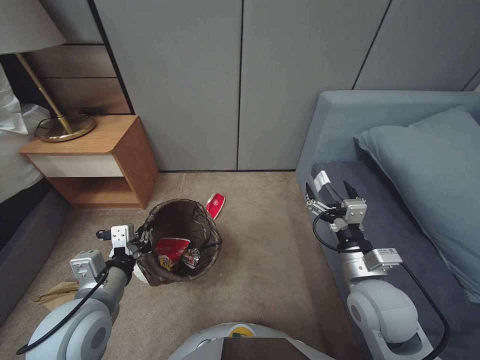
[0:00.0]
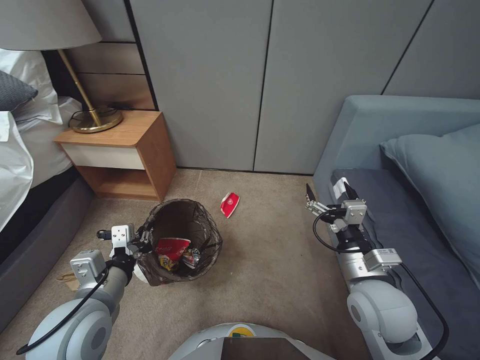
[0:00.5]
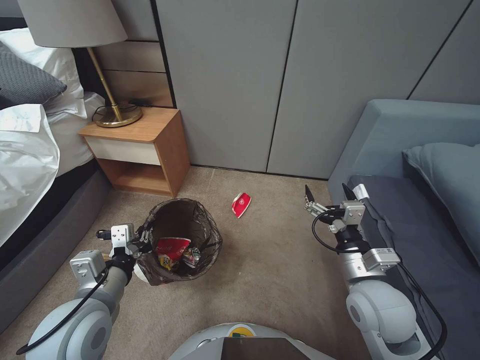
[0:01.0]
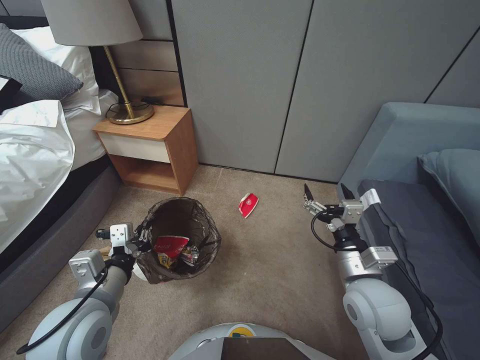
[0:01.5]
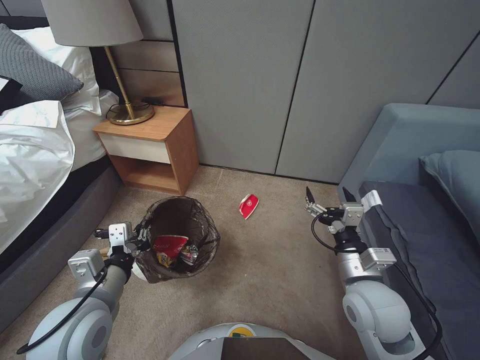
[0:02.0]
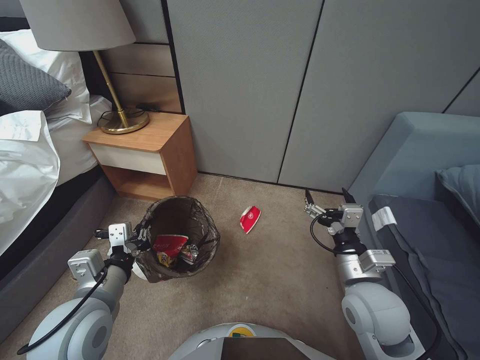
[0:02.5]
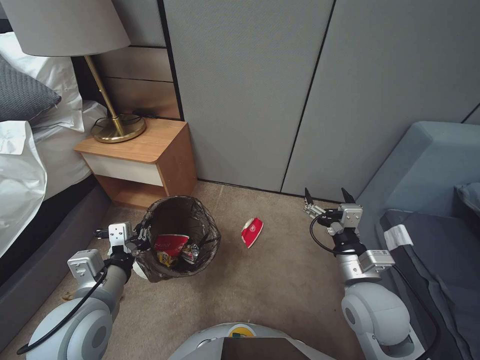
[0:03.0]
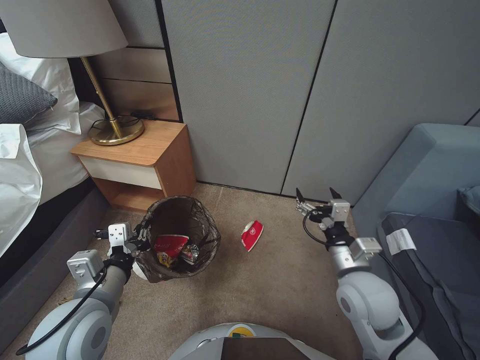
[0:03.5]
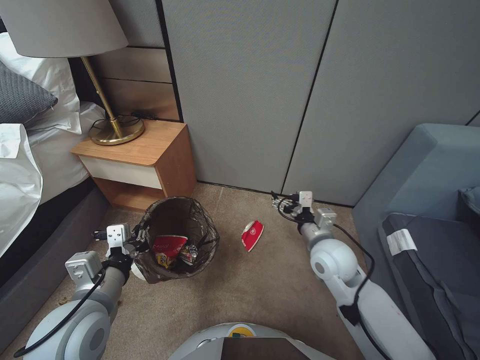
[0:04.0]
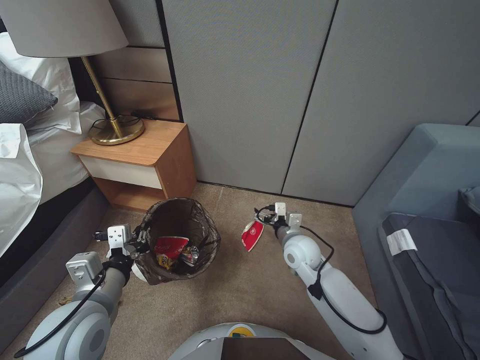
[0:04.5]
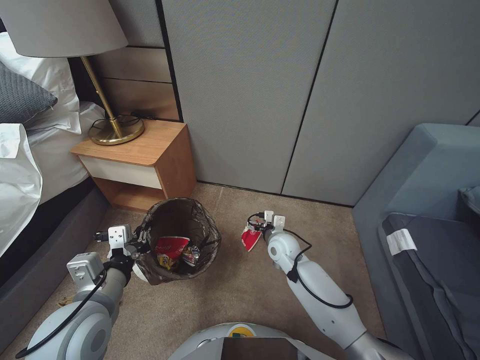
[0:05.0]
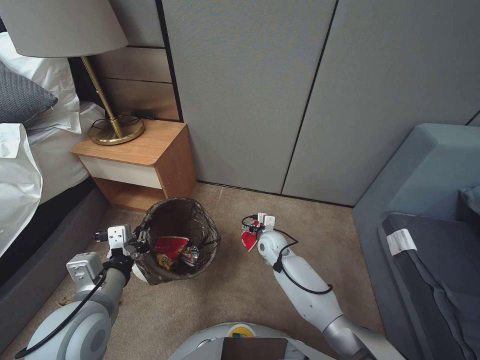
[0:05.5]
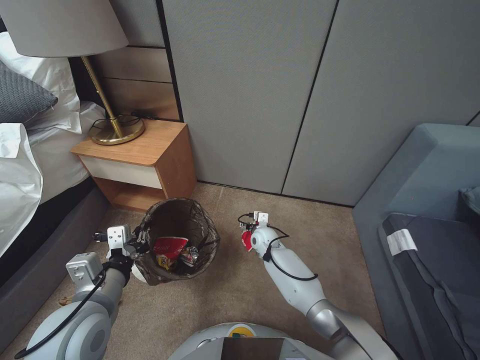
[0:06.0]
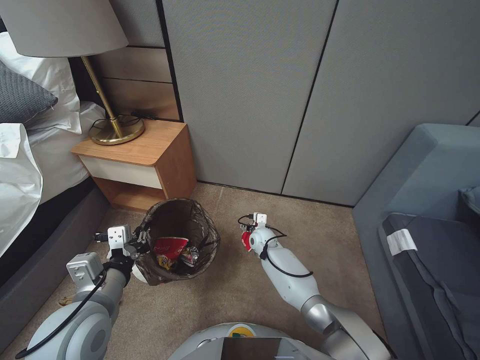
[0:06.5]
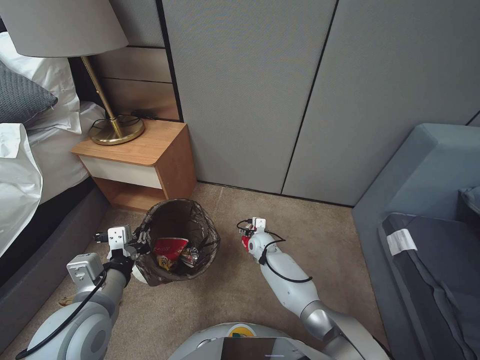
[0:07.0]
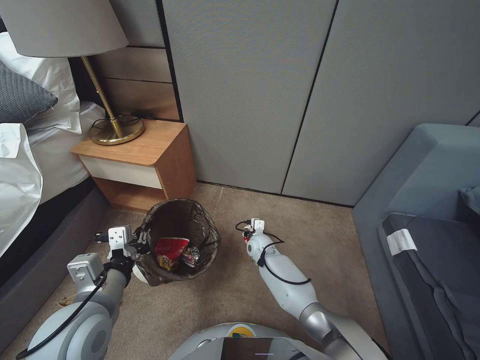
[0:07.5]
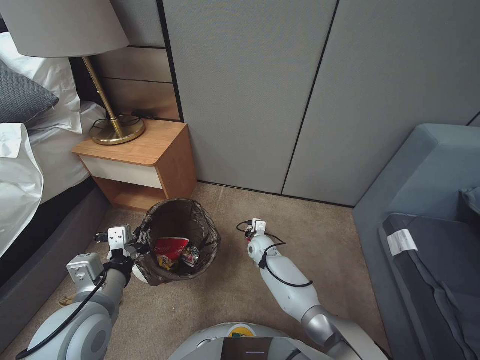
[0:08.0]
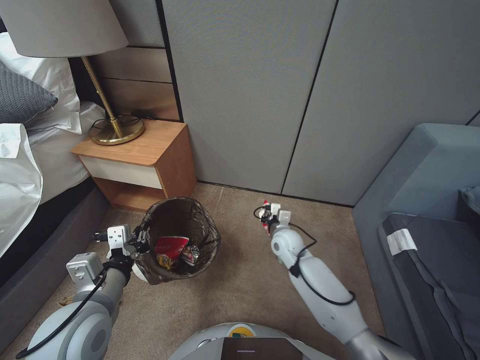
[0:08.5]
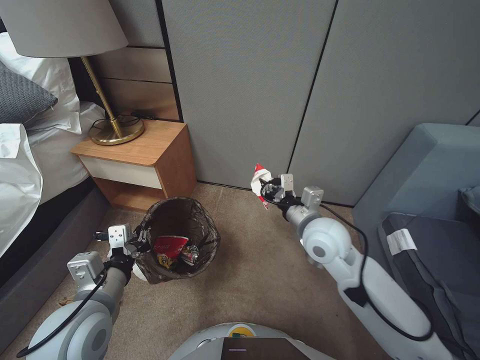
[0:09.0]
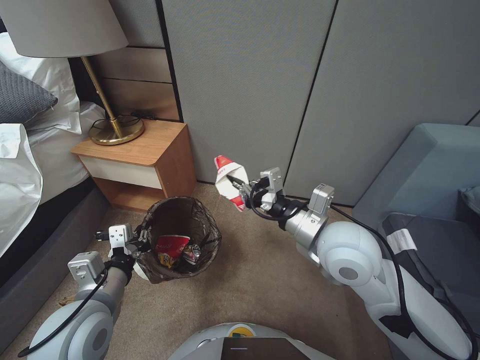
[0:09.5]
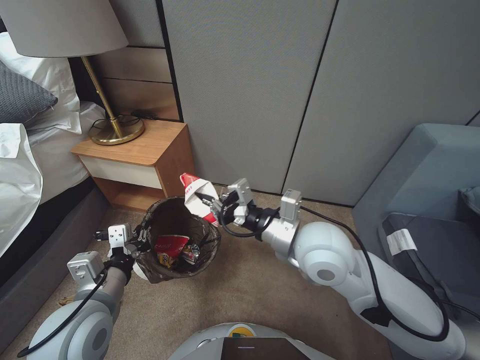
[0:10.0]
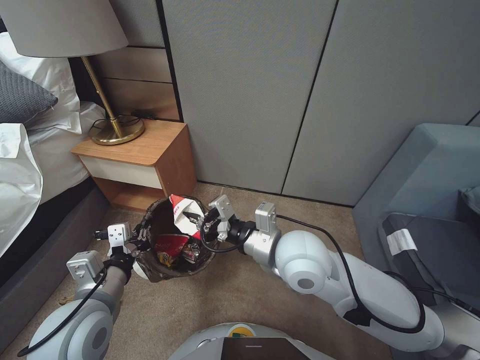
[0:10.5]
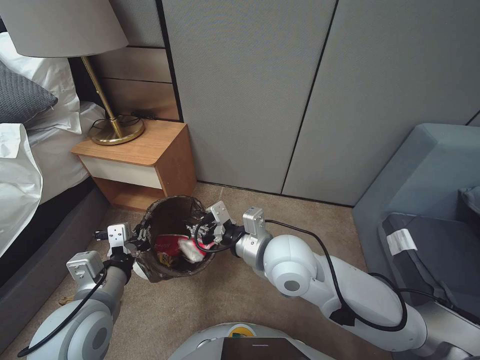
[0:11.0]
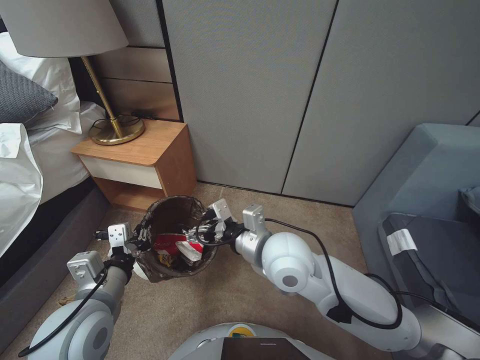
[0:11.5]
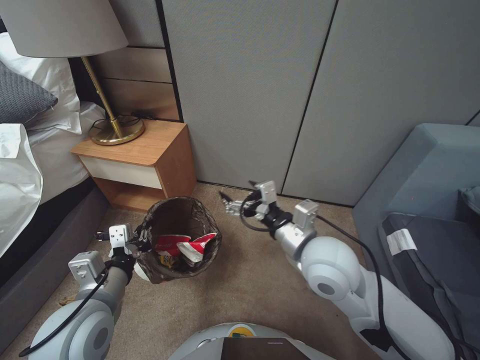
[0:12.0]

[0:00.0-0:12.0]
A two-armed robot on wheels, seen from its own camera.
Task of the whole recording: Pick up the trash bin, then pick up the garbage from the floor and place it into the trash bin.
0:02.0 to 0:04.0: The right gripper is displaced forward by roughly 10 cm.
0:04.0 to 0:06.0: The right gripper heads downward, forward and to the left, covering approximately 30 cm.
0:06.0 to 0:08.0: The right gripper closes.
0:08.0 to 0:10.0: The right gripper shifts approximately 40 cm upward and backward.
0:10.0 to 0:12.0: The right gripper opens.

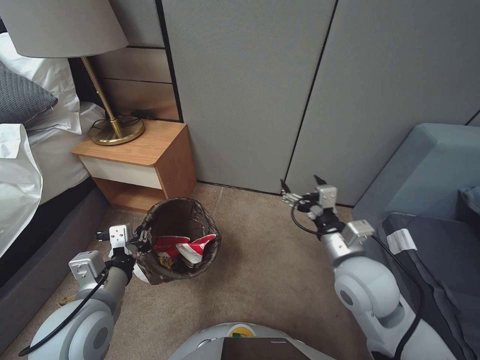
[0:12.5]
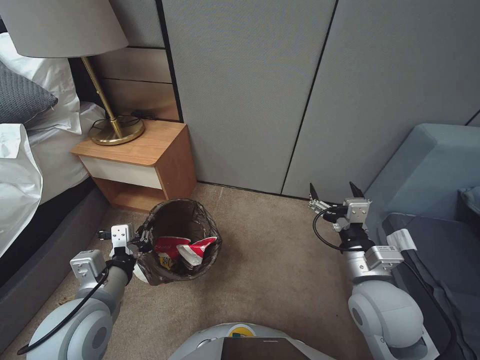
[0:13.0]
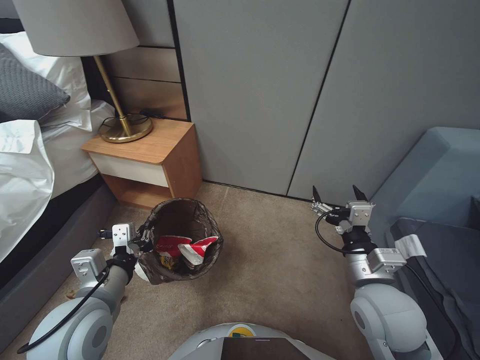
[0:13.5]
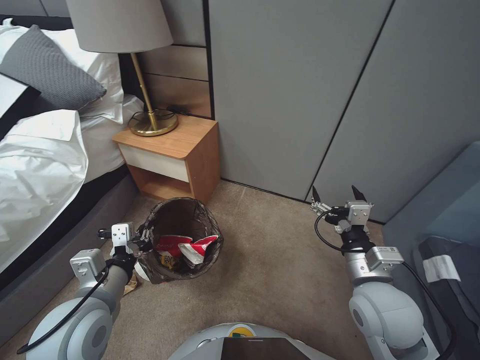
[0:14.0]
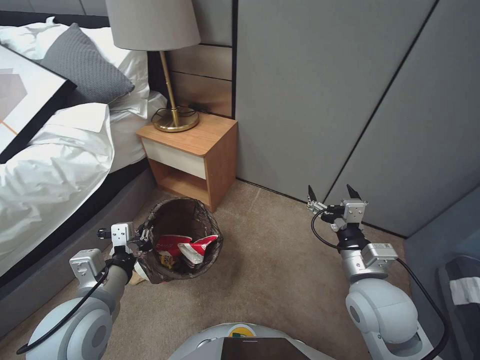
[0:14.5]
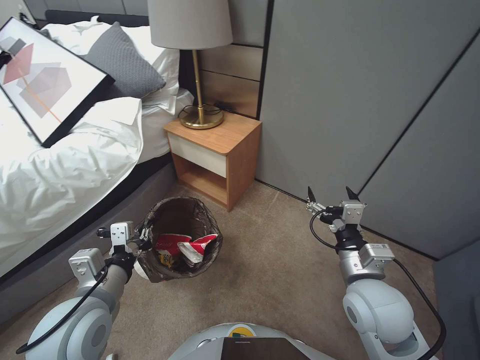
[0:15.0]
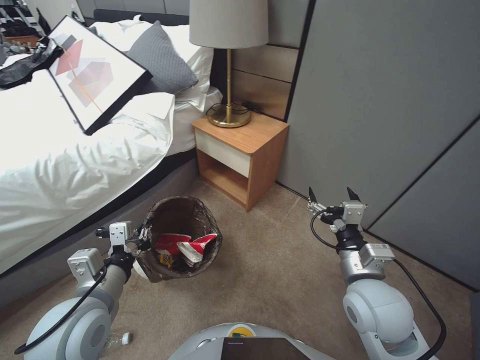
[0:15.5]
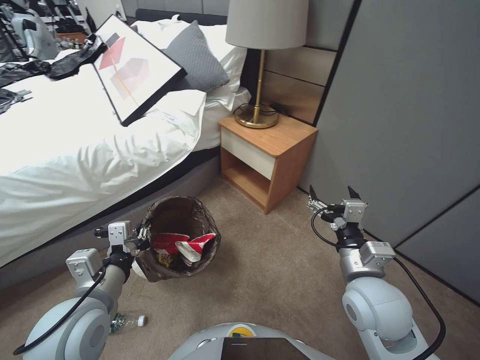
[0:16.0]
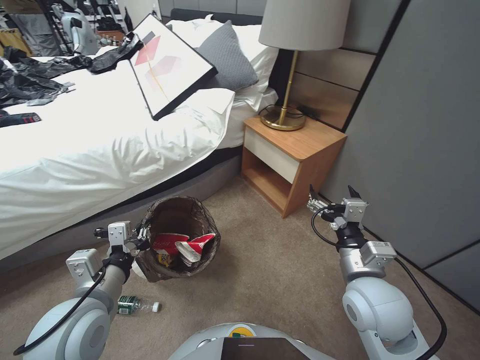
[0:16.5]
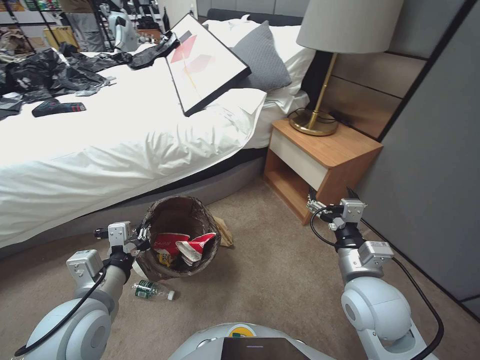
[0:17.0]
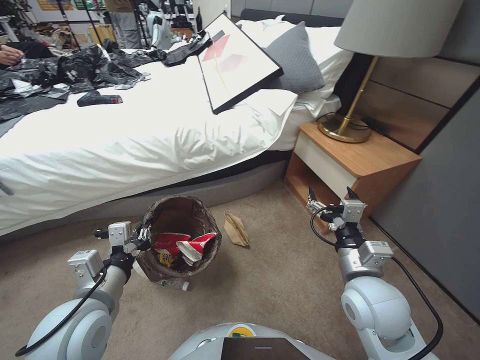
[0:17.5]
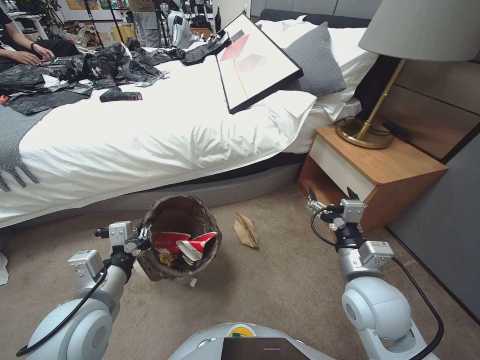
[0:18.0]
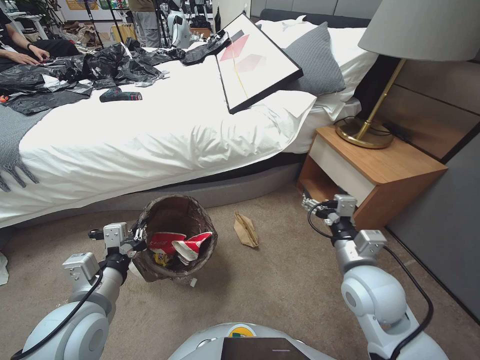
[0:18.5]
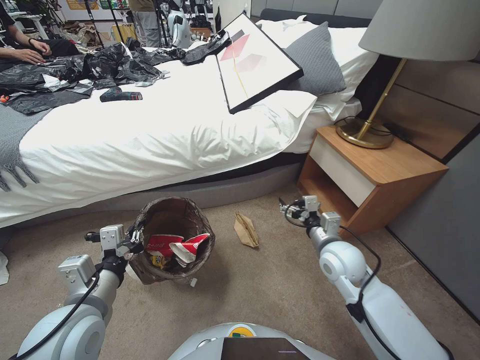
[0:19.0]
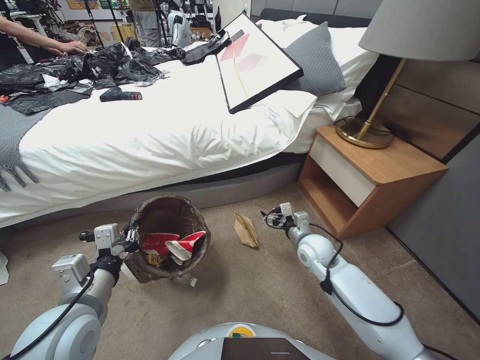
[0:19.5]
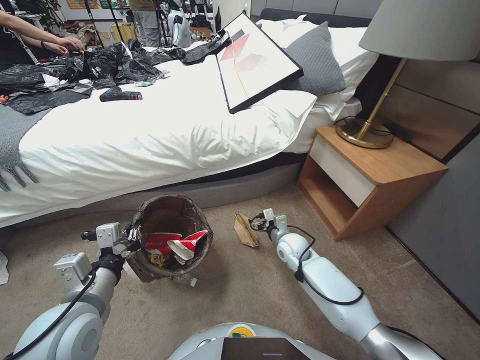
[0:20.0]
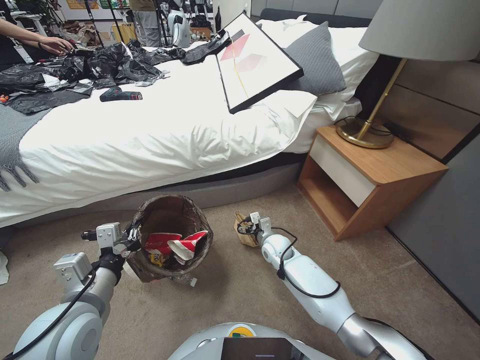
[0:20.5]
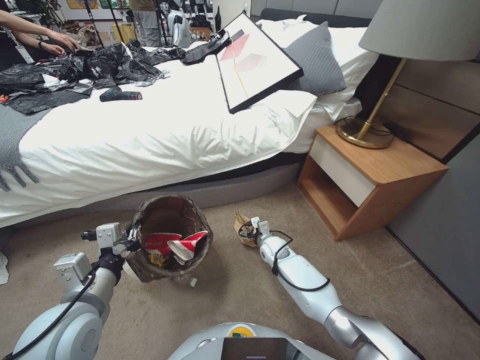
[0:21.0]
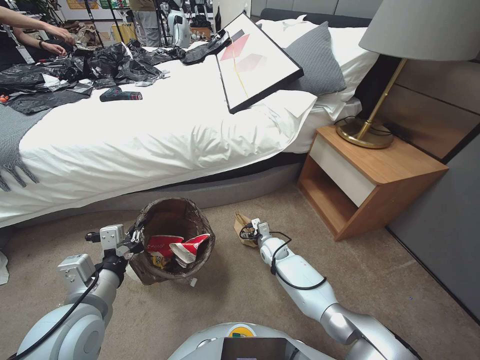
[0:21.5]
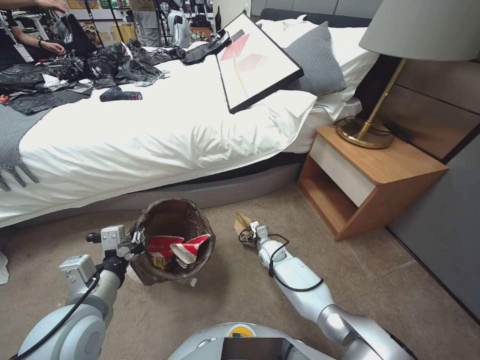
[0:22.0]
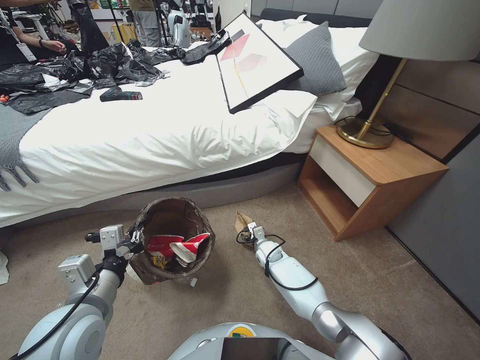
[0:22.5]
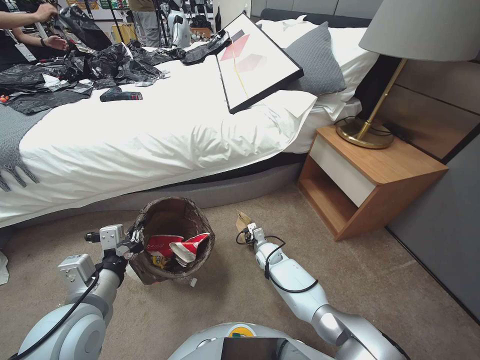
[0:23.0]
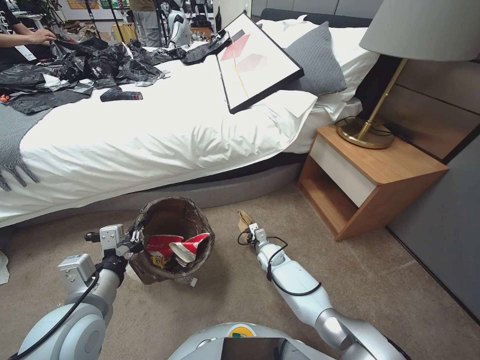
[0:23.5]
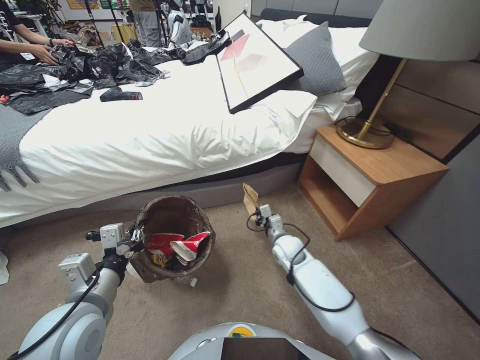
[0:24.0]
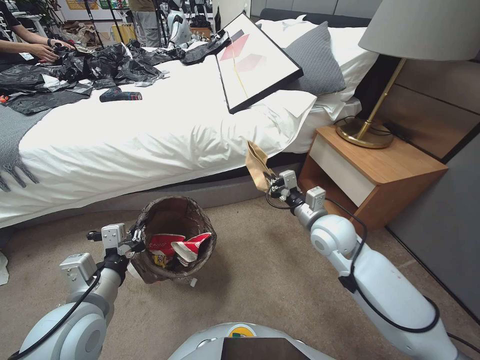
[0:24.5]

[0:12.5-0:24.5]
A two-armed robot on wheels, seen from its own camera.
Task of the whole recording: Pick up the trash bin, then pick up the garbage from the floor and place it into the trash bin.
0:12.5 to 0:14.5: The right gripper moves about 5 cm.
0:18.5 to 0:20.5: The right gripper is displaced downward, forward and to the left by about 30 cm.
0:20.5 to 0:22.5: The right gripper goes approximately 10 cm downward.
0:22.5 to 0:24.5: The right gripper heads upward, covering about 30 cm, and closes.

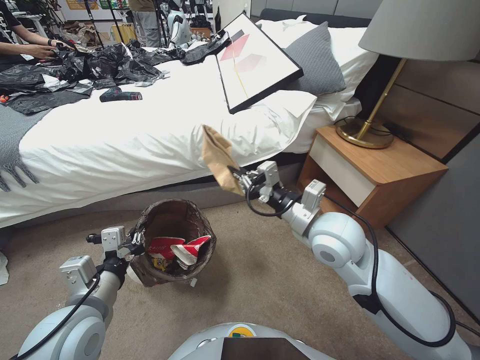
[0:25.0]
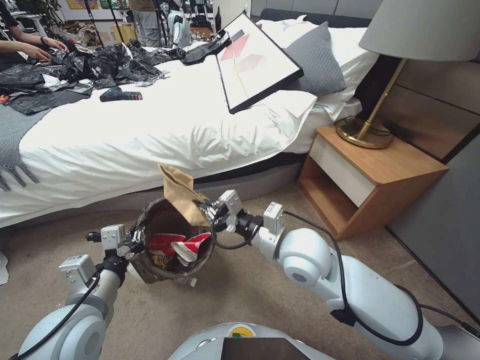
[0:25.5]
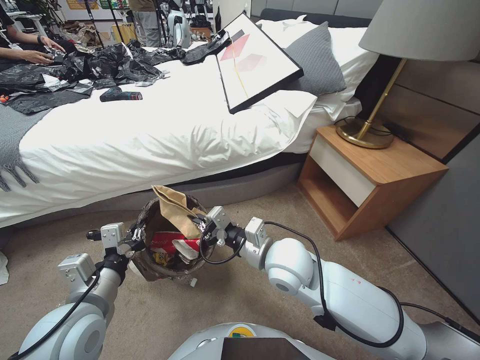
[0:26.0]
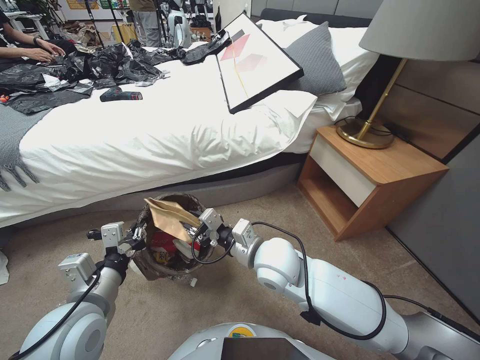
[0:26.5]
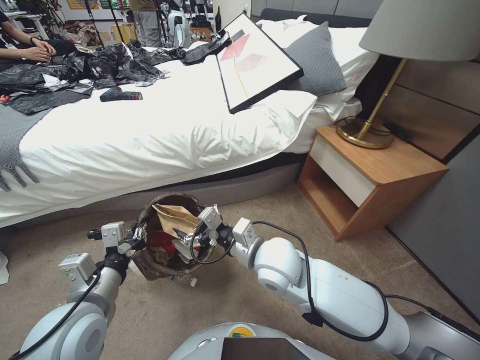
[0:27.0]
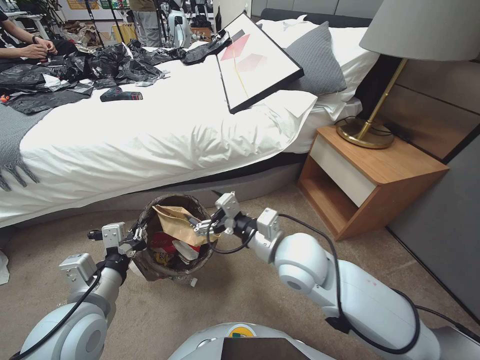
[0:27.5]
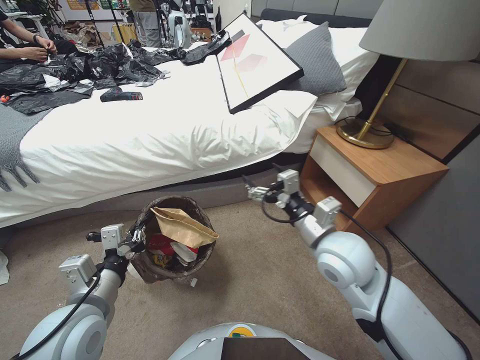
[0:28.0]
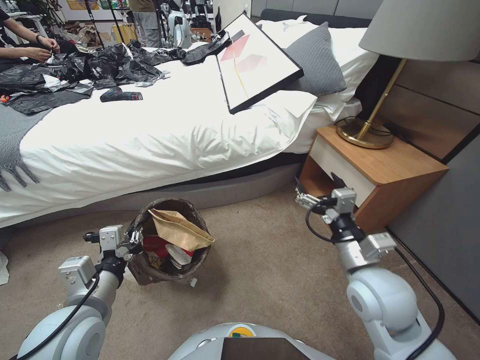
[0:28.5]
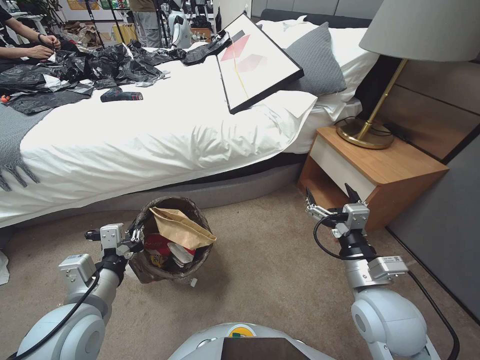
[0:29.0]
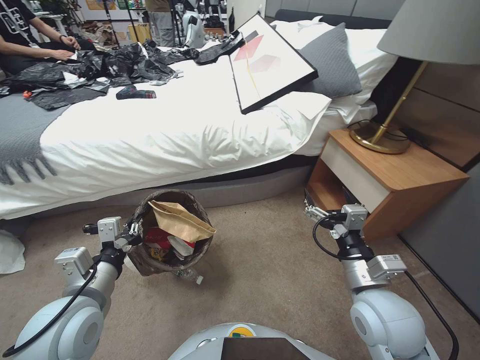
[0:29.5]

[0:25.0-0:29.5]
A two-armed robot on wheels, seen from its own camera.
Task of the whole recording: Pick up the trash bin, then pick up the garbage from the floor and place it into the trash bin.
0:25.0 to 0:27.0: The right gripper heads to the left and downward, covering some 15 cm, and opens up.
0:27.0 to 0:29.5: The right gripper heads to the right and backward, covering about 20 cm.
